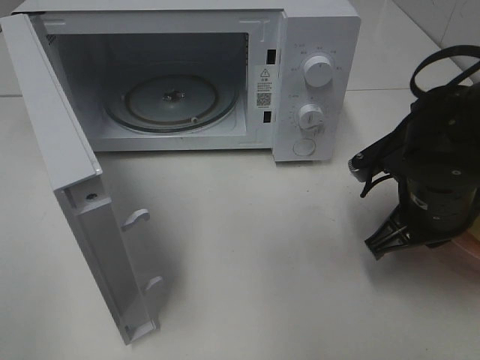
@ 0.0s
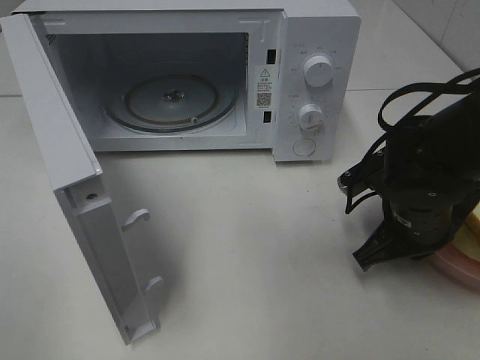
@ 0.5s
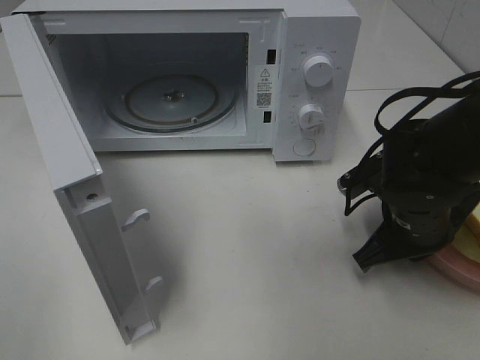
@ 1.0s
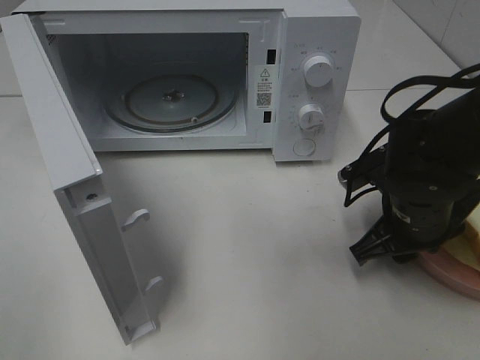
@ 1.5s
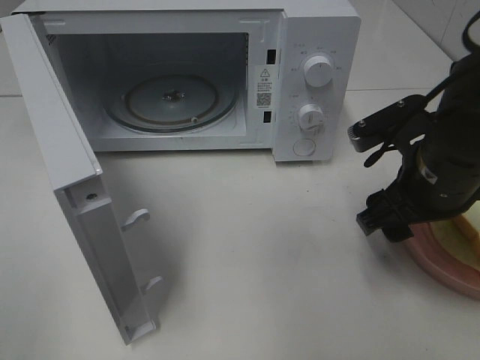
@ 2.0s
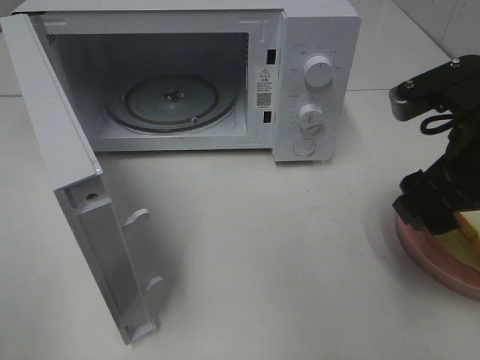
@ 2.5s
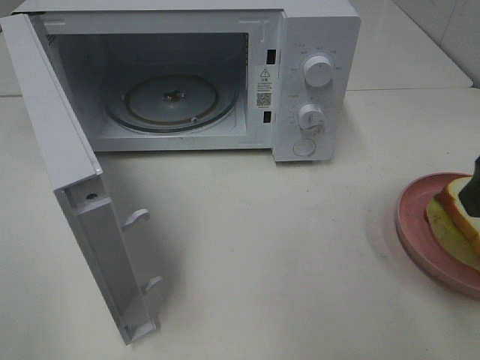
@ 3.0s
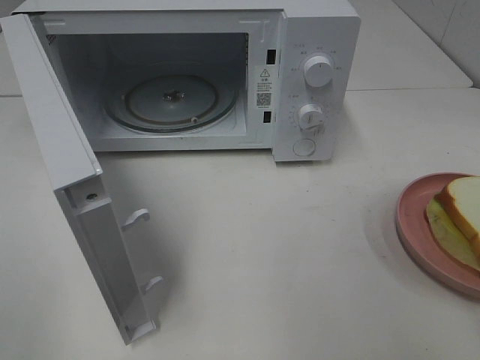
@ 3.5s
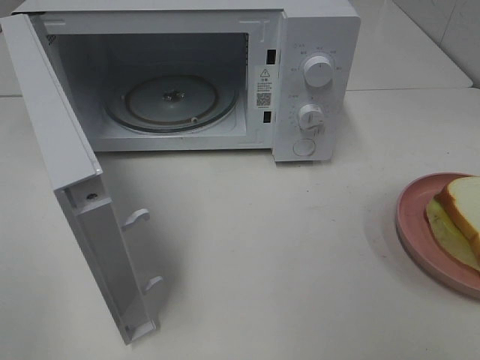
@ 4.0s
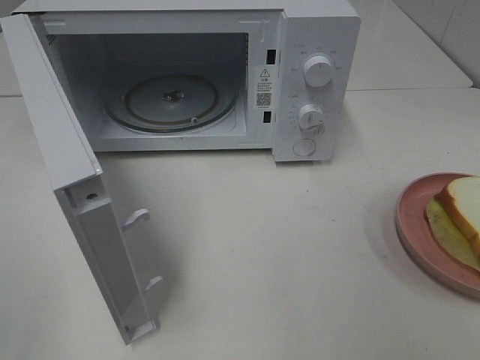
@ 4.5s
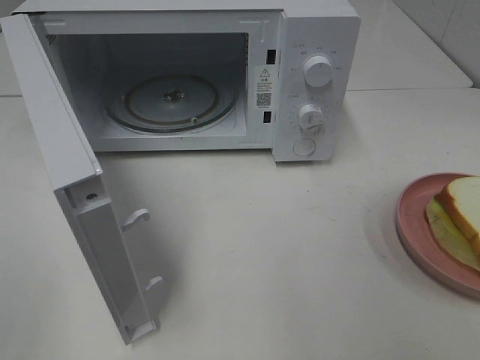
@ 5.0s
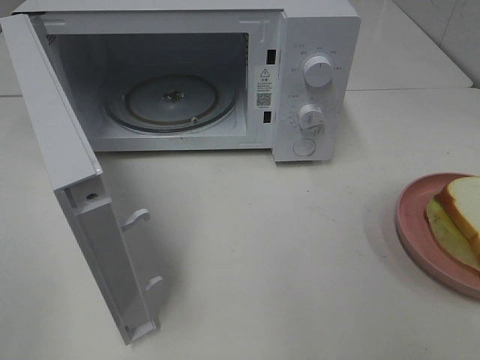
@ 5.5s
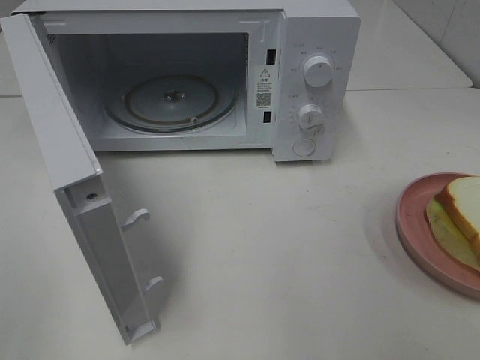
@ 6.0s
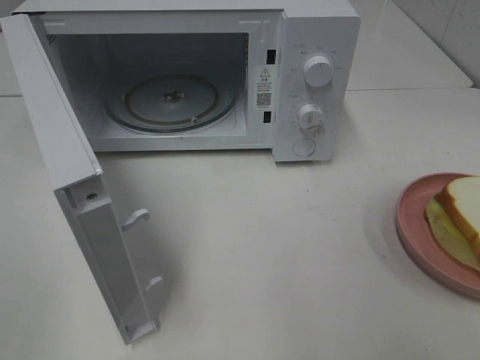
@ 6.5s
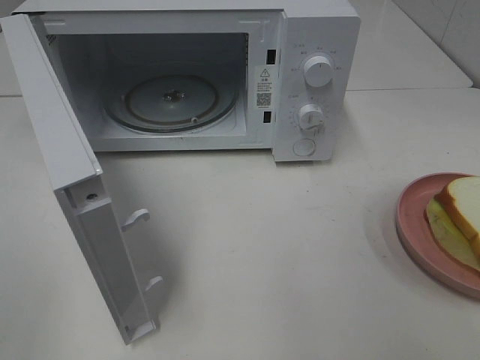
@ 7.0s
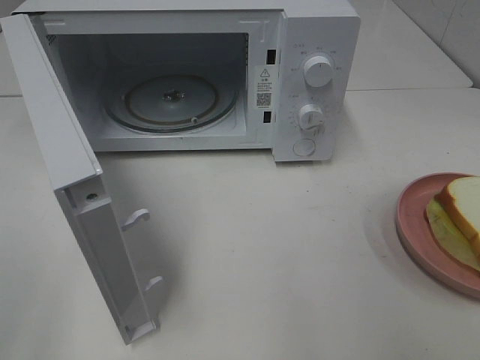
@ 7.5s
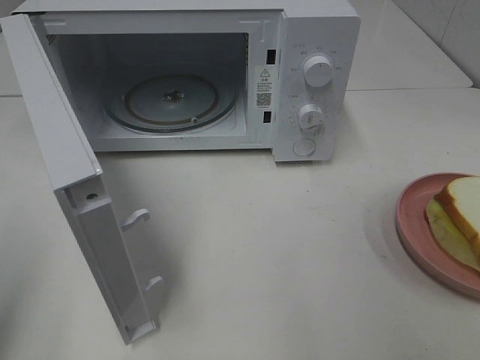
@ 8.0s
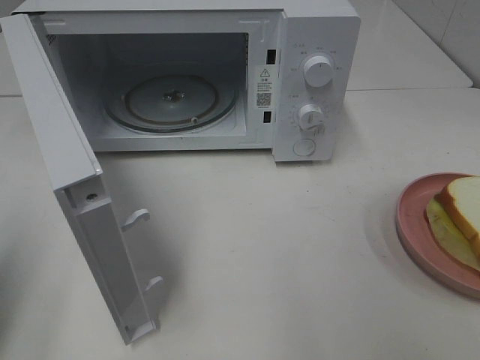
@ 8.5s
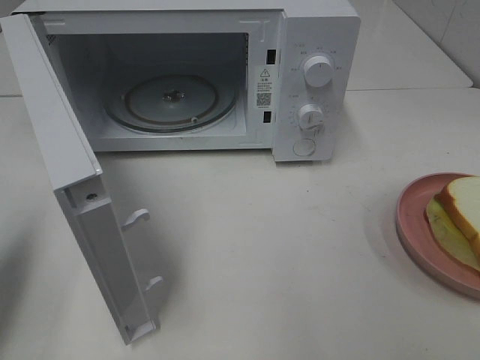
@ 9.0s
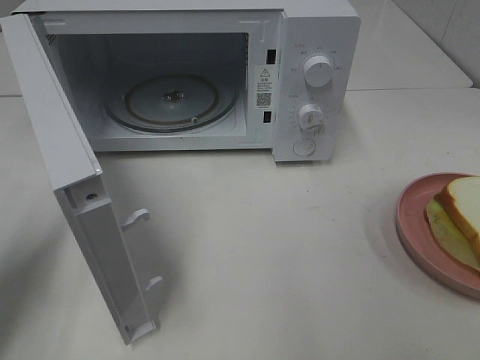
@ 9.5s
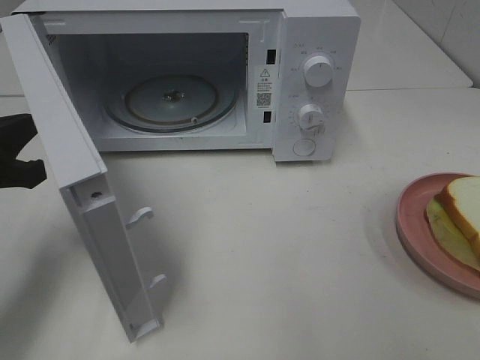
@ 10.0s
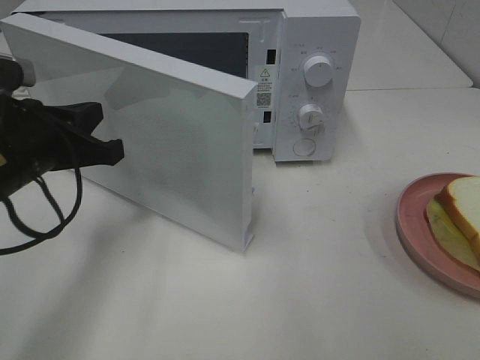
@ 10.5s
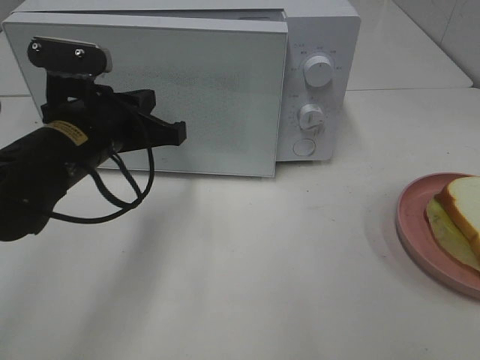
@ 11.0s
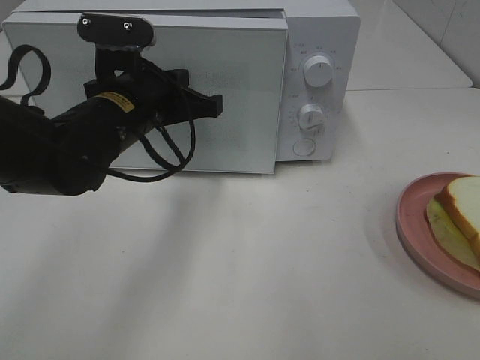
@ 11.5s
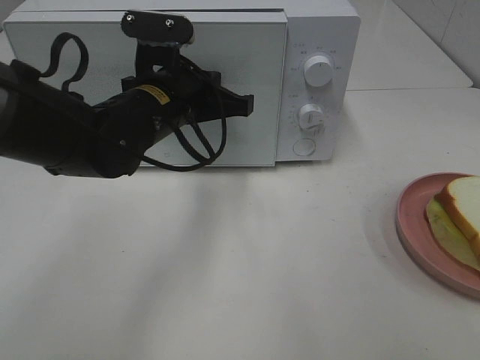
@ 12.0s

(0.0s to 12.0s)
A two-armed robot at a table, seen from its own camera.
Task of the whole recording: Heat Sandwich.
Step, 0.0s - 2.5s: Right hand: place the plate on the table.
0.0s - 2.0s: The right gripper opens.
2.0s - 4.0s: The right gripper is displaced backward, upward and to the right by some 30 cm.
8.0s - 10.0s: The left gripper moves forward and downward, roughly 20 cm, and closes its fingers.
10.0s - 12.0s: The left gripper is displaced to the right and forward by approximately 20 cm.

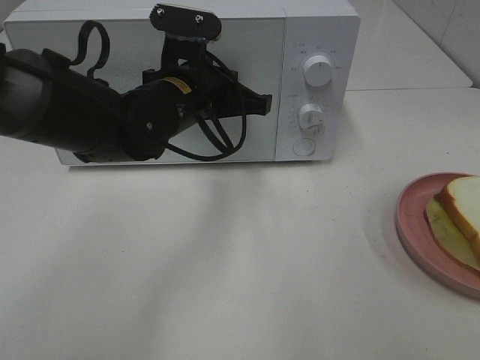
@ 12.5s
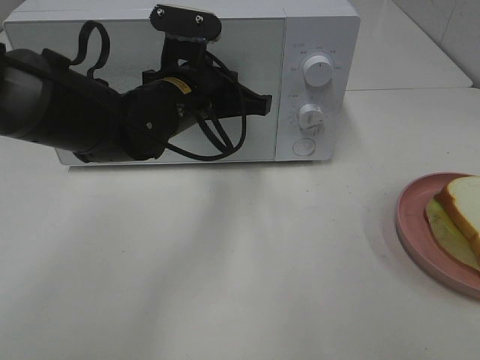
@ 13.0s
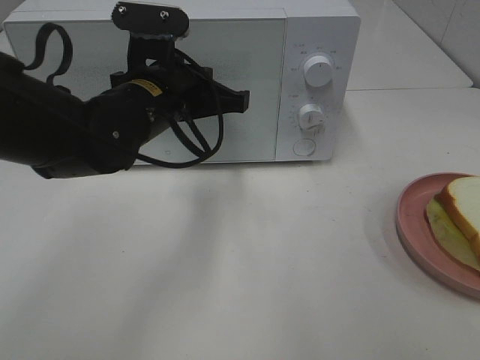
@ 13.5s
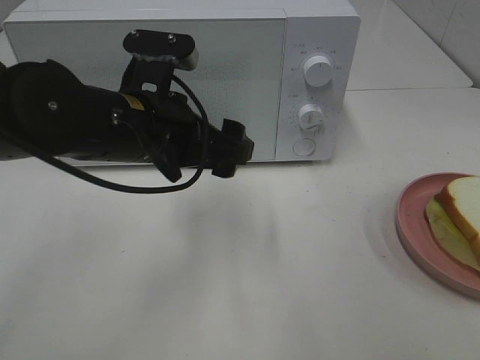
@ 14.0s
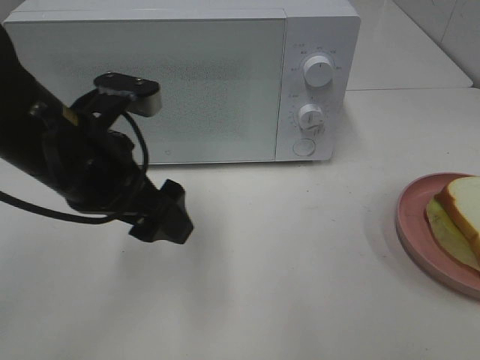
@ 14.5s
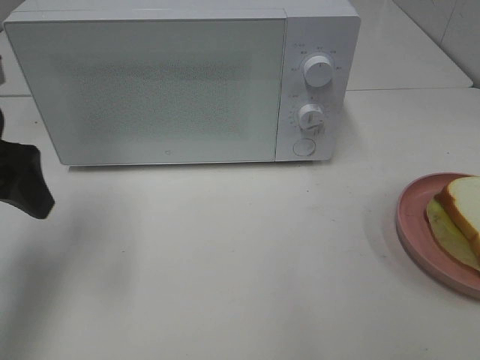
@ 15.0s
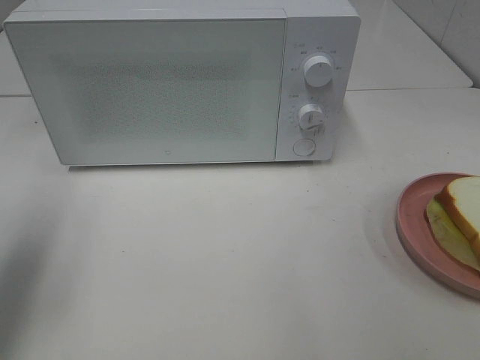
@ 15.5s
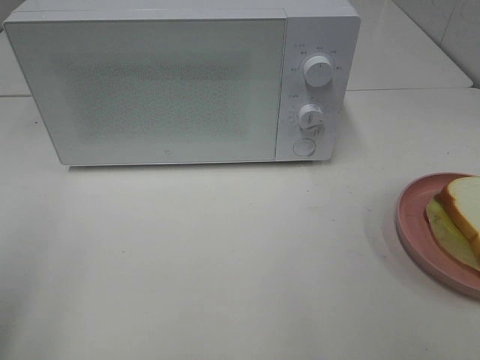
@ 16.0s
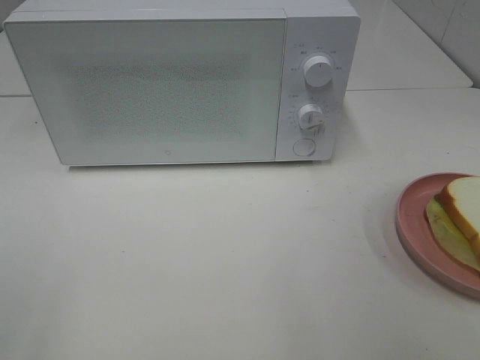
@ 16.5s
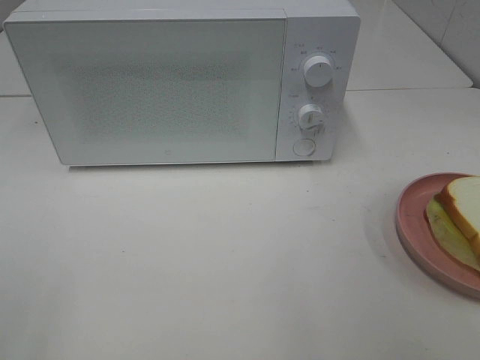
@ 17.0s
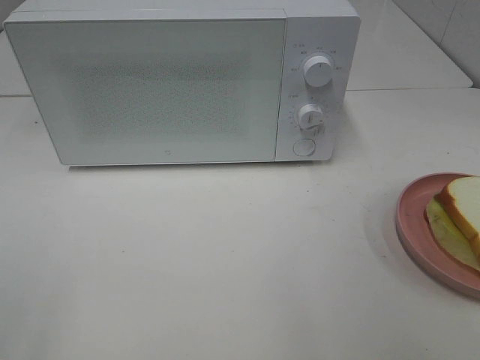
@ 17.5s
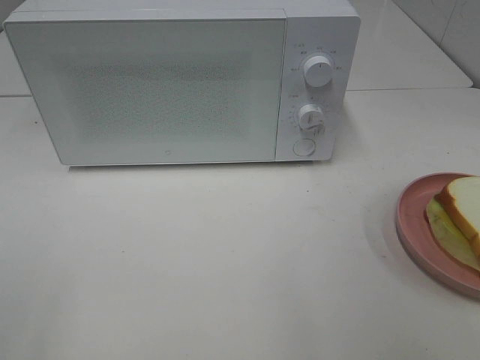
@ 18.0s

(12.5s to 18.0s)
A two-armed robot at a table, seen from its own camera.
Task of the whole recording: Heat Sandwich.
12.5s - 14.5s: The left gripper travels backward and to the left by approximately 15 cm, and opens its fingers.
14.5s - 16.0s: The left gripper travels to the left and backward by approximately 25 cm.

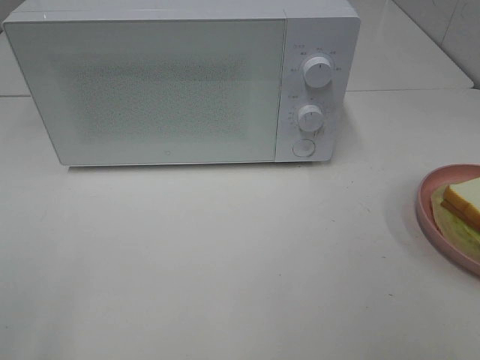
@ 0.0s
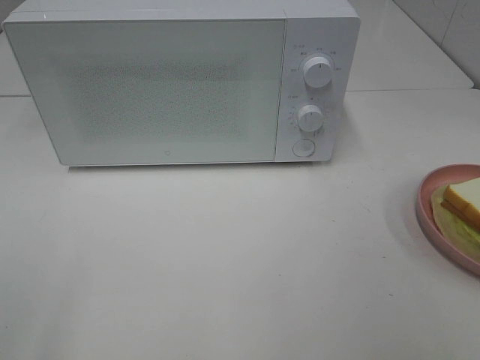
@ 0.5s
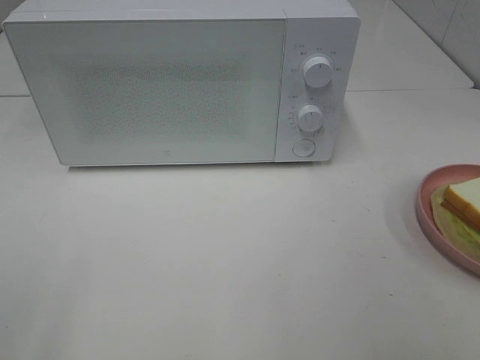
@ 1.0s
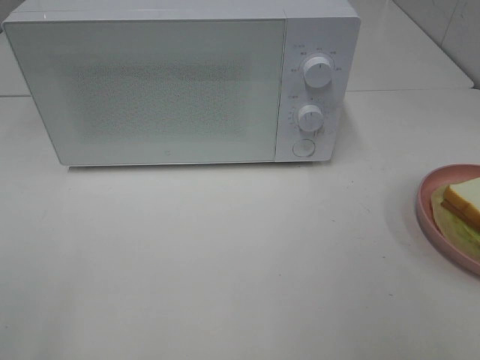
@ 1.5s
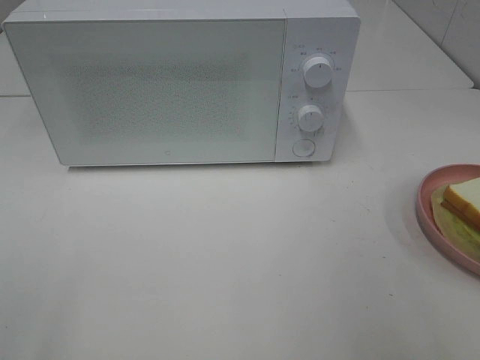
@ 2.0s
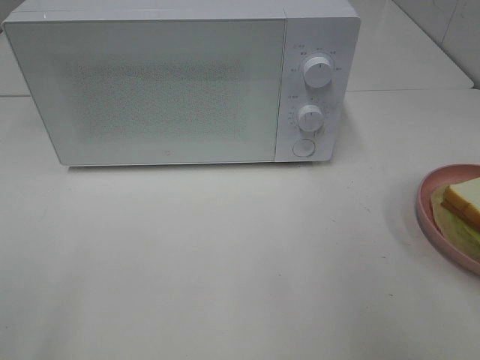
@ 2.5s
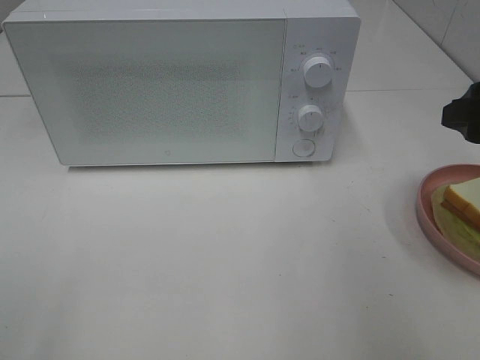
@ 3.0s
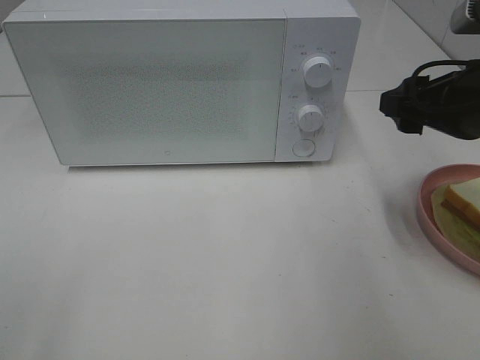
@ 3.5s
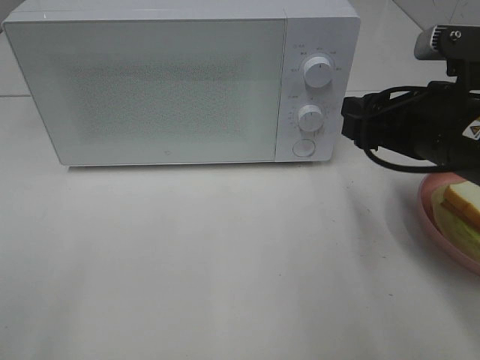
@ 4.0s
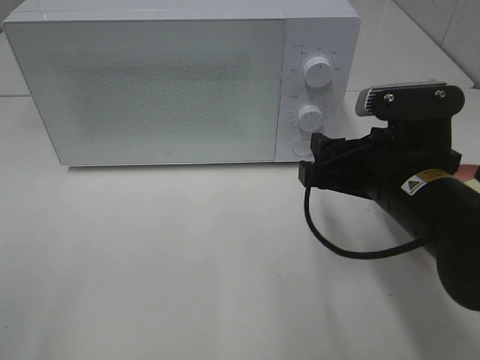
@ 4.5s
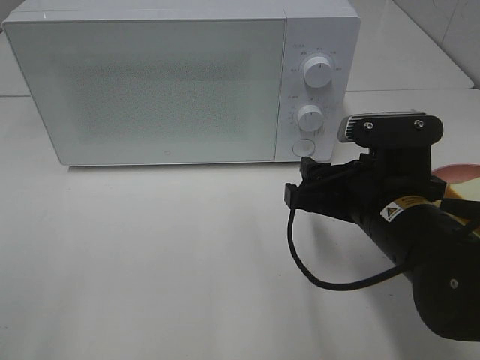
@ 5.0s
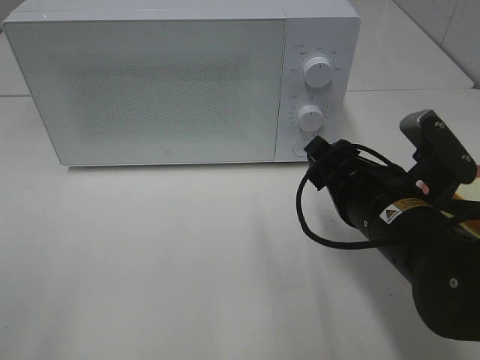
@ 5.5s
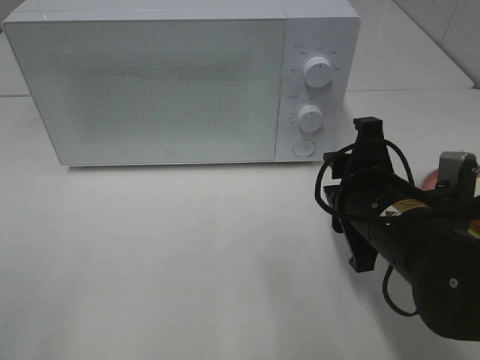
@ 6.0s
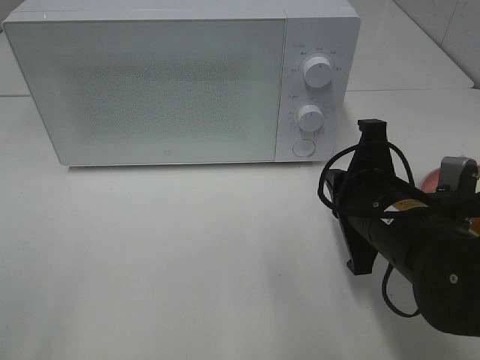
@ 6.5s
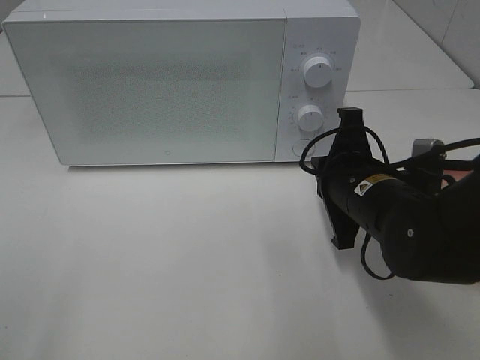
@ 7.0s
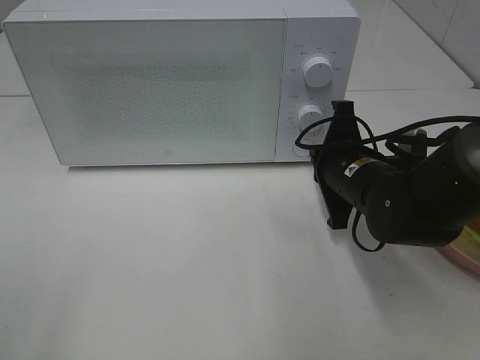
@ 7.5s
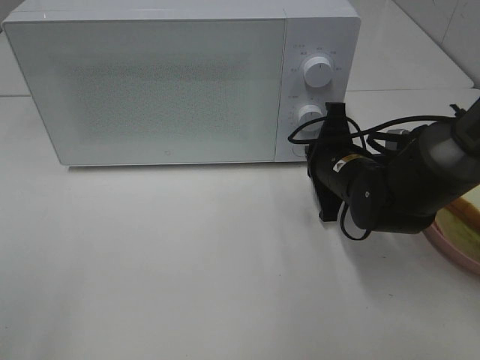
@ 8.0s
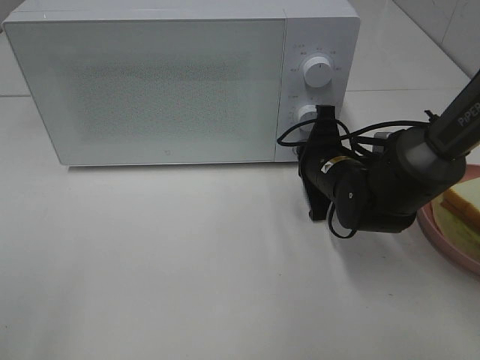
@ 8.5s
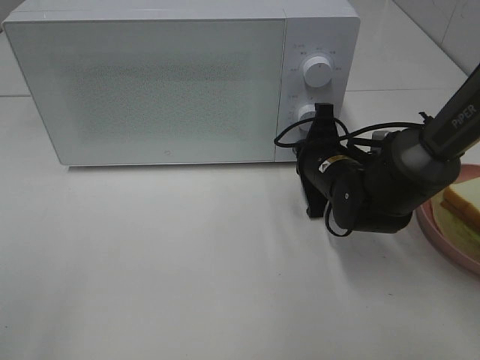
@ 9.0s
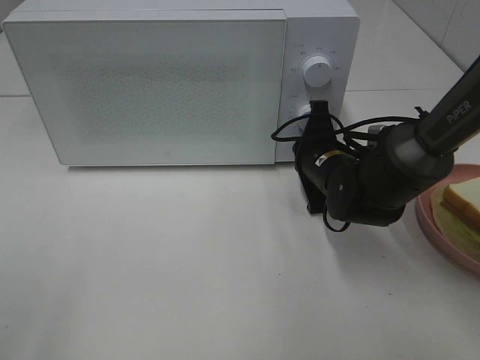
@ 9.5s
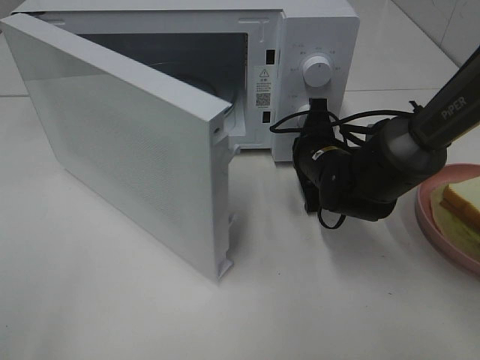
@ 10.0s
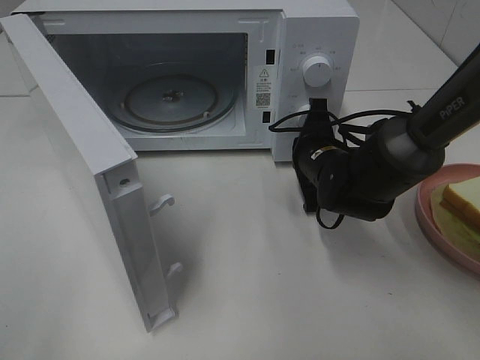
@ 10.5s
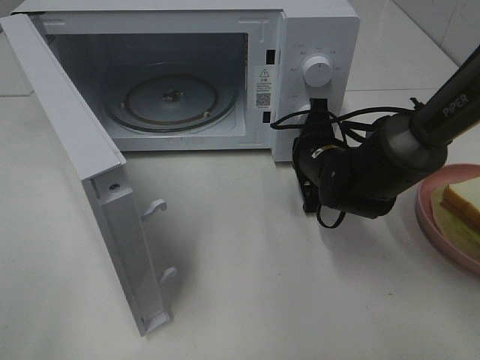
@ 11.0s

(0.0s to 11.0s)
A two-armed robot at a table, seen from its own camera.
Task of the whole recording: Heat Sandwich.
2.0s - 3.5s: The right gripper moves forward and downward, about 20 cm.
3.5s - 5.5s: The right gripper heads to the left and downward, covering approximately 10 cm.
5.5s - 7.5s: The right gripper travels forward by about 10 cm, and closes up.
7.5s - 9.0s: The right gripper moves approximately 5 cm.
